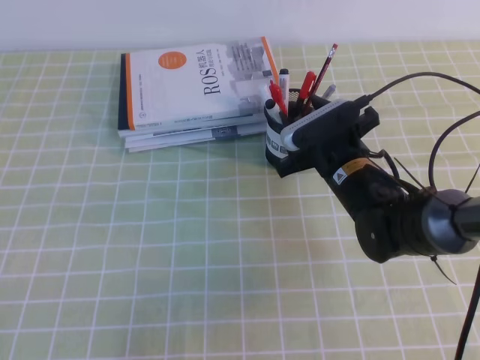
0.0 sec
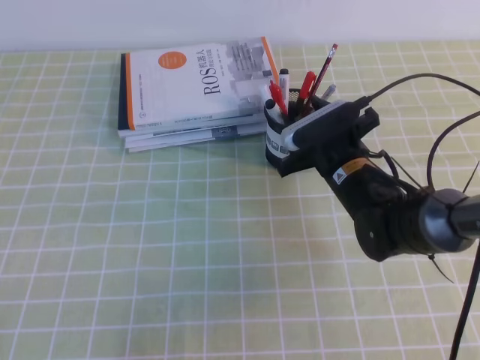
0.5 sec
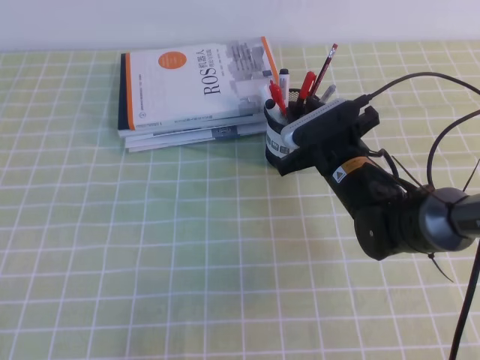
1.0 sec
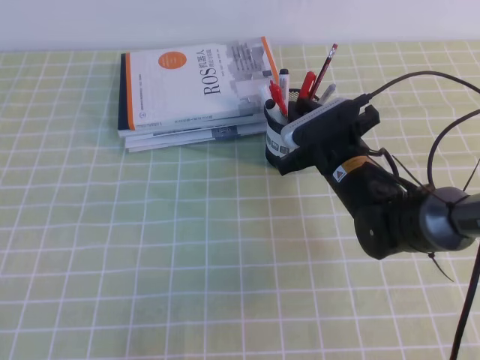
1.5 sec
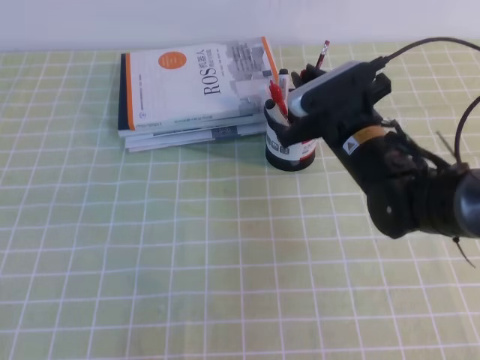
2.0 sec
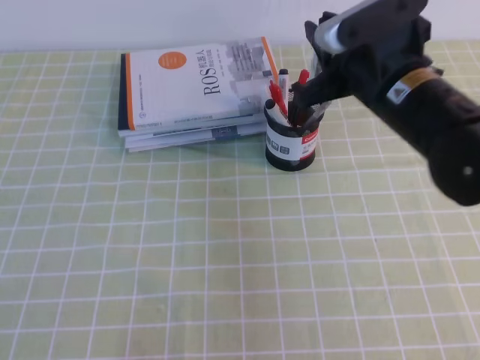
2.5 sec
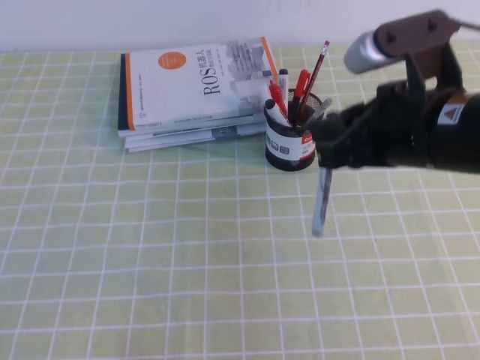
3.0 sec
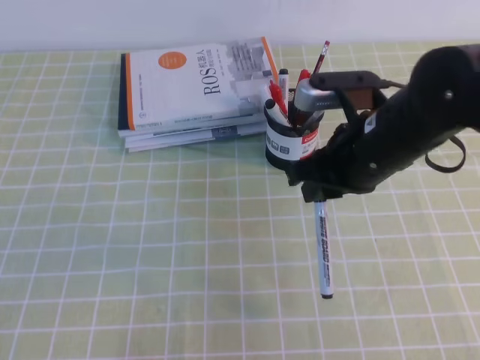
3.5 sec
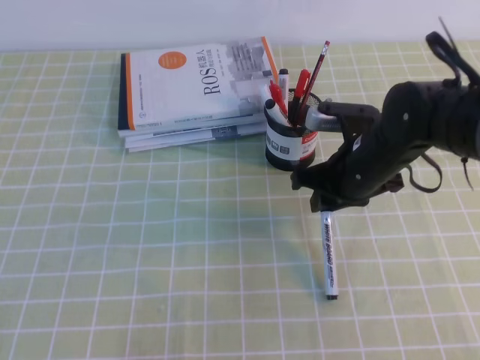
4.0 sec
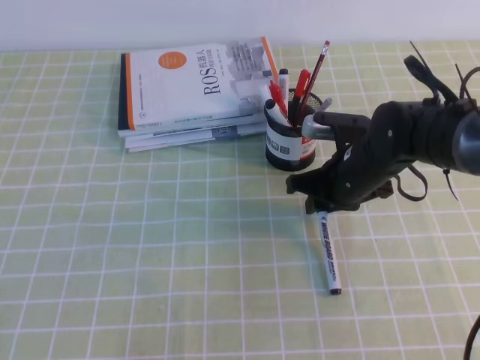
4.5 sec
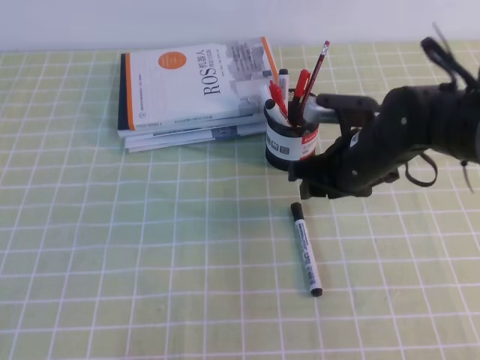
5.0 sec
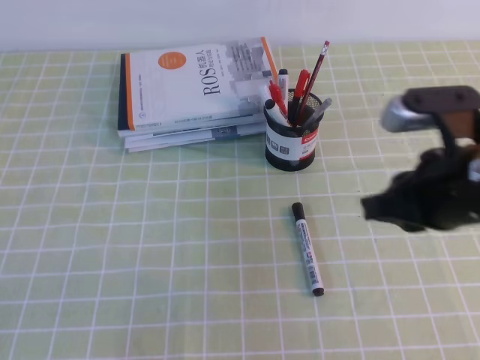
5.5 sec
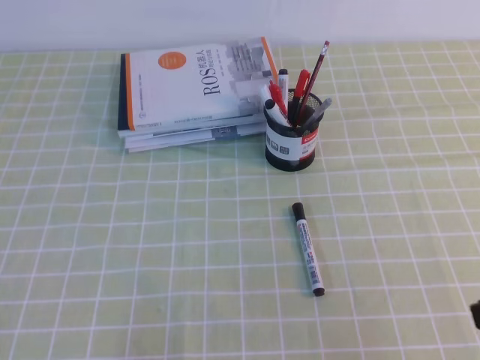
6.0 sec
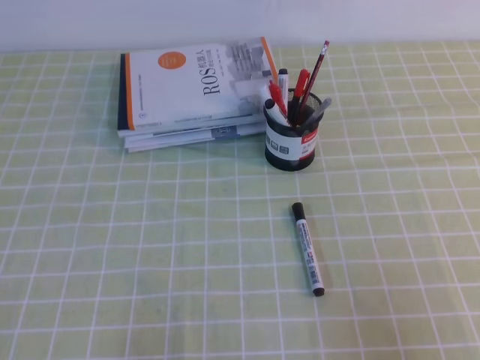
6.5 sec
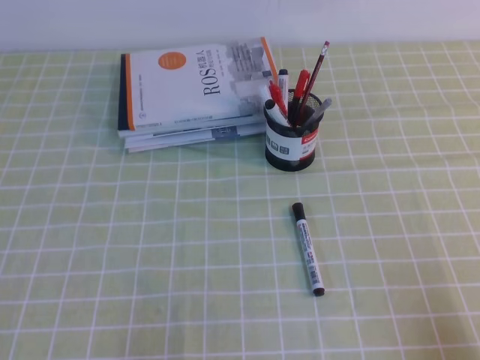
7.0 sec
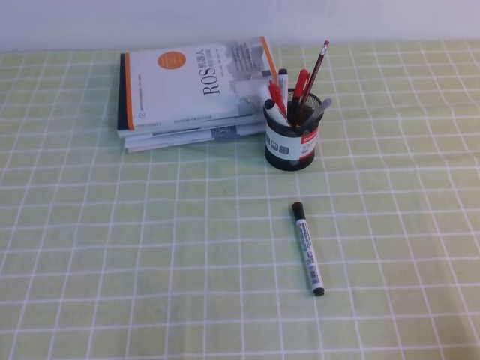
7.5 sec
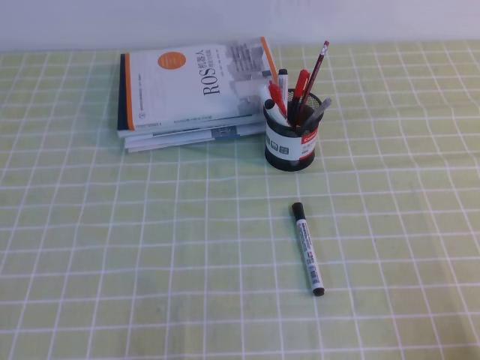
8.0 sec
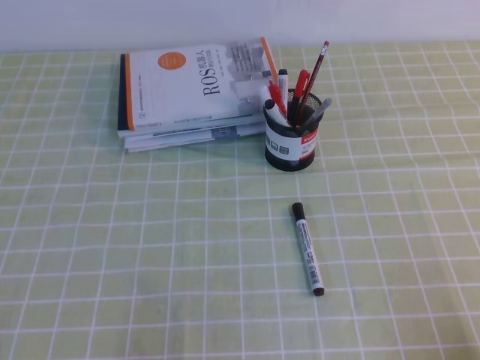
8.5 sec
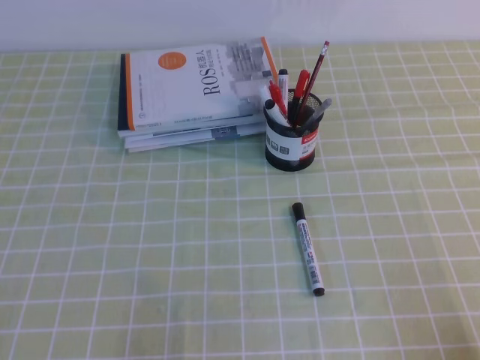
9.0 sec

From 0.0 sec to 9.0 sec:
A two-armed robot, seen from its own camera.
Step, from 0.0 sec to 9.0 sec: Pick up the pen from the pen holder.
From 0.0 sec to 2.0 sec: The right gripper travels upward by approximately 5 cm, and closes up.
From 2.0 sec to 4.5 sec: The right gripper travels upward and back again, approximately 10 cm each way.
From 4.5 sec to 7.0 sec: The right gripper shifts about 35 cm backward and to the right.
